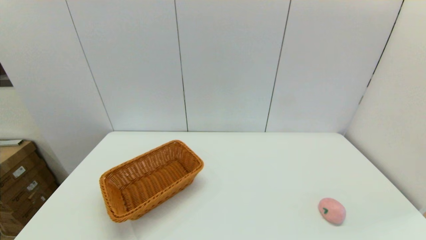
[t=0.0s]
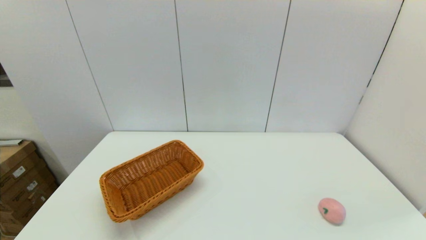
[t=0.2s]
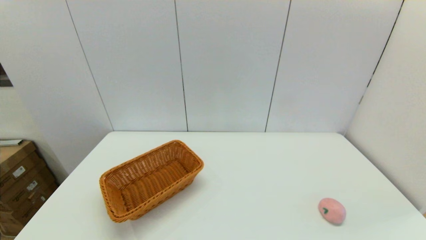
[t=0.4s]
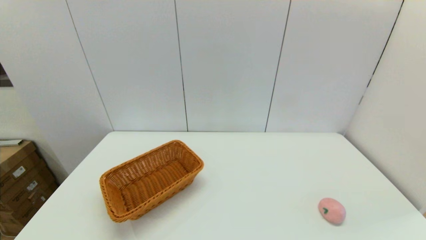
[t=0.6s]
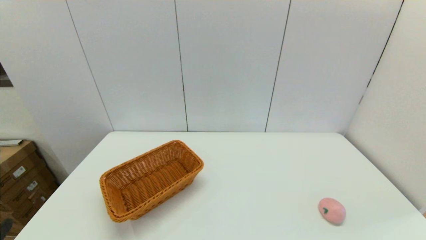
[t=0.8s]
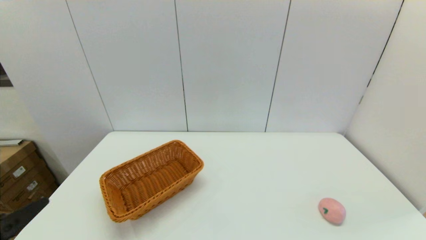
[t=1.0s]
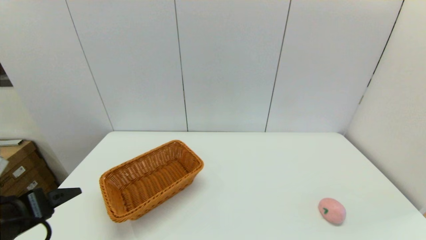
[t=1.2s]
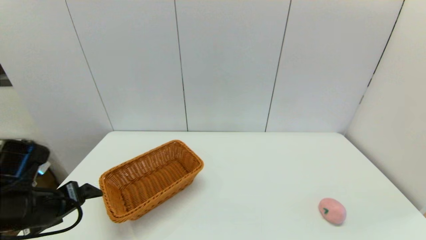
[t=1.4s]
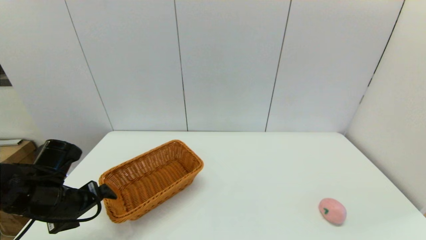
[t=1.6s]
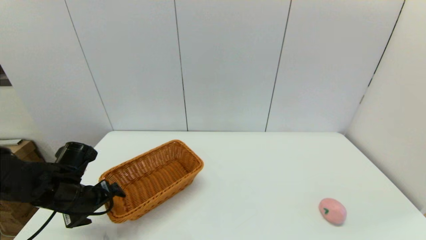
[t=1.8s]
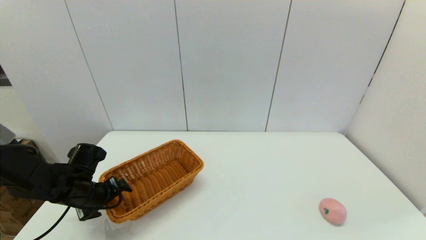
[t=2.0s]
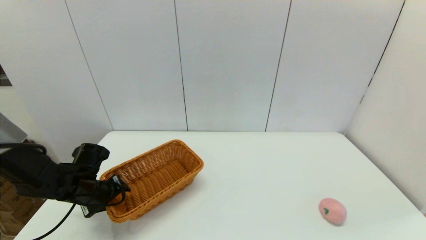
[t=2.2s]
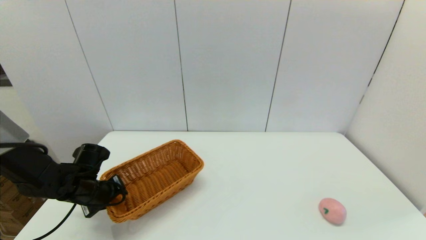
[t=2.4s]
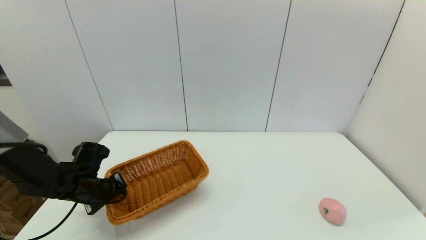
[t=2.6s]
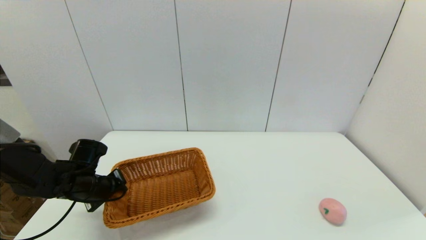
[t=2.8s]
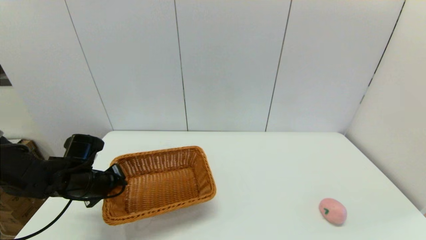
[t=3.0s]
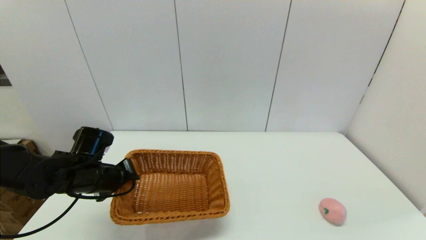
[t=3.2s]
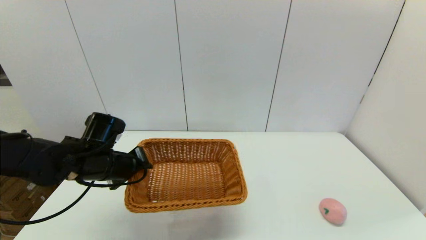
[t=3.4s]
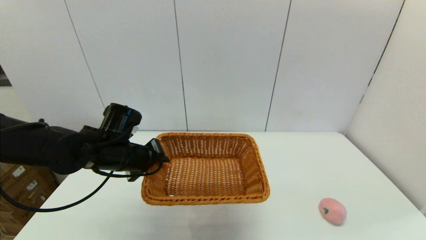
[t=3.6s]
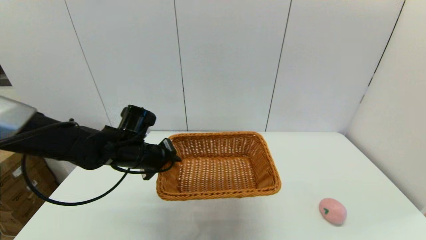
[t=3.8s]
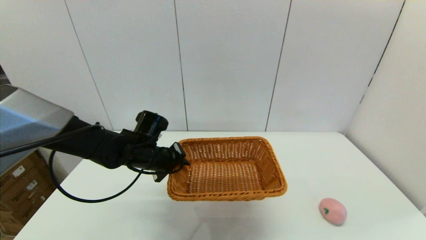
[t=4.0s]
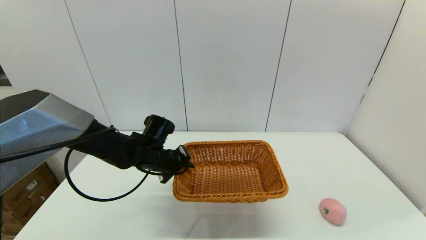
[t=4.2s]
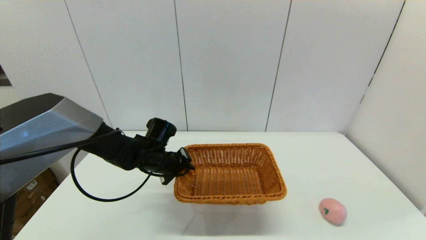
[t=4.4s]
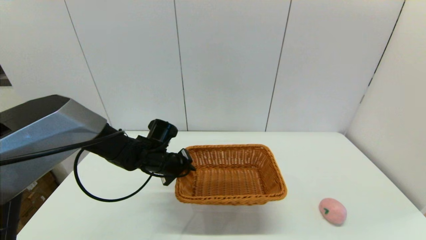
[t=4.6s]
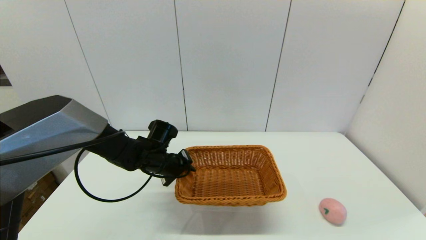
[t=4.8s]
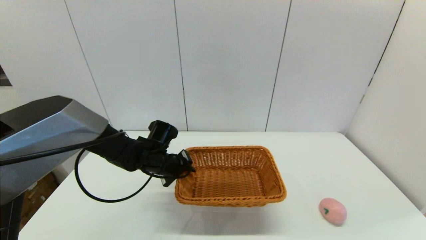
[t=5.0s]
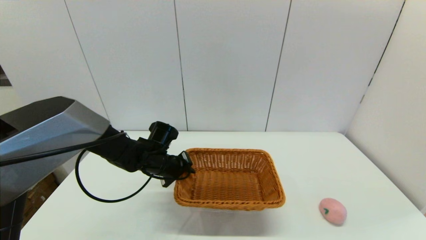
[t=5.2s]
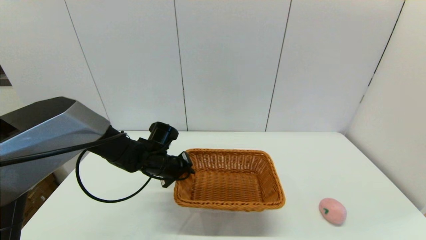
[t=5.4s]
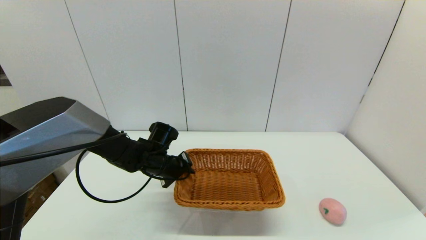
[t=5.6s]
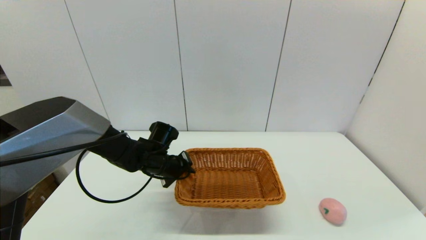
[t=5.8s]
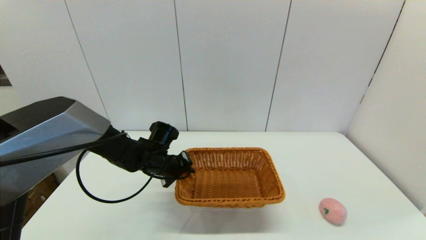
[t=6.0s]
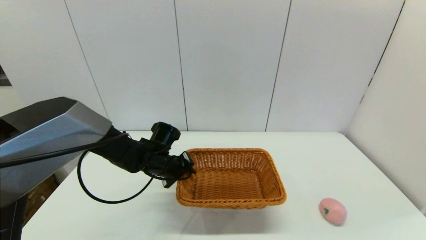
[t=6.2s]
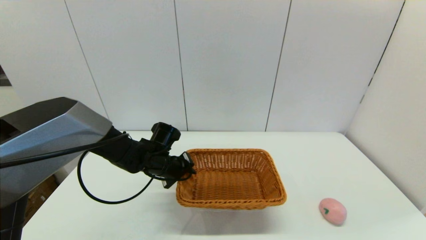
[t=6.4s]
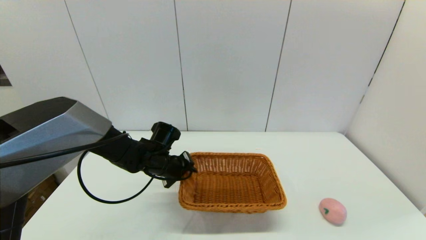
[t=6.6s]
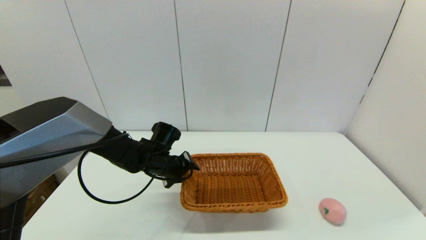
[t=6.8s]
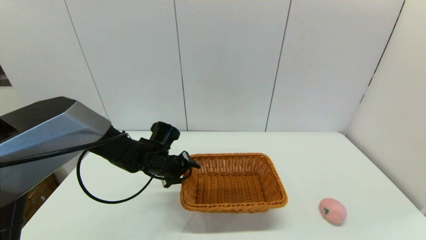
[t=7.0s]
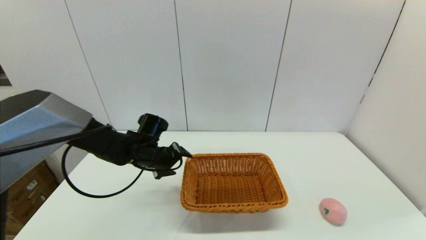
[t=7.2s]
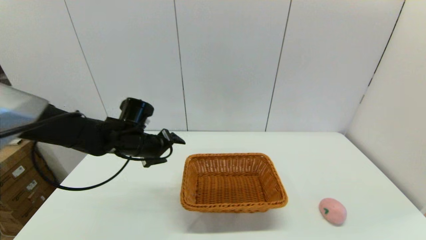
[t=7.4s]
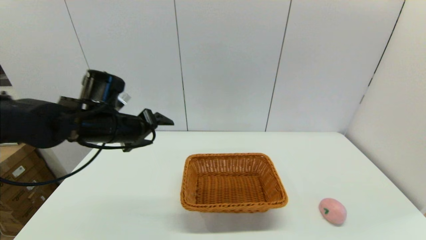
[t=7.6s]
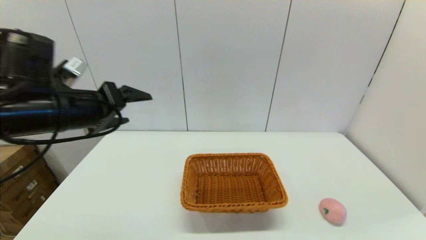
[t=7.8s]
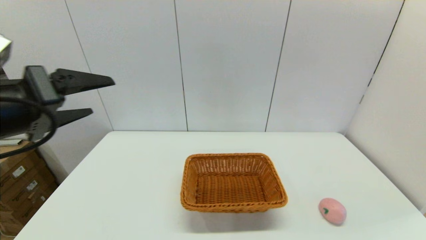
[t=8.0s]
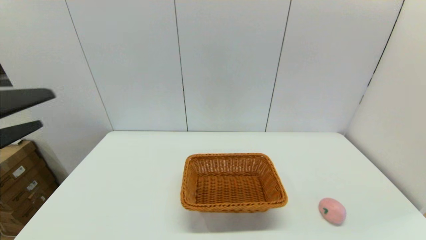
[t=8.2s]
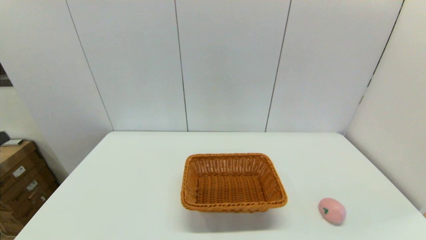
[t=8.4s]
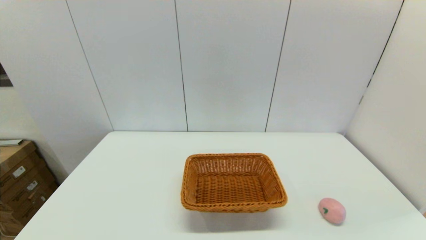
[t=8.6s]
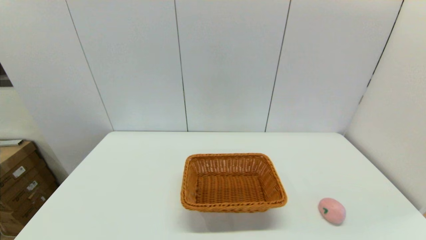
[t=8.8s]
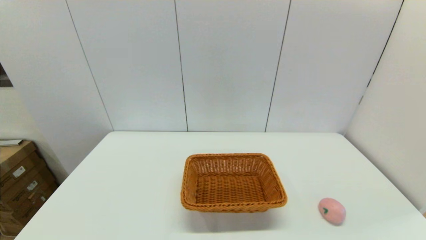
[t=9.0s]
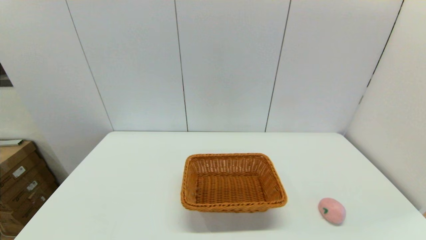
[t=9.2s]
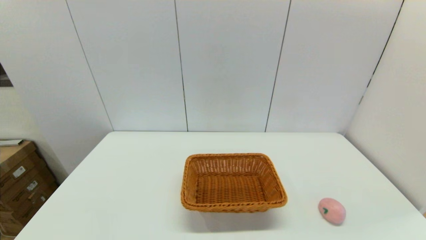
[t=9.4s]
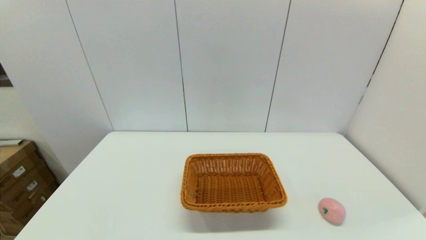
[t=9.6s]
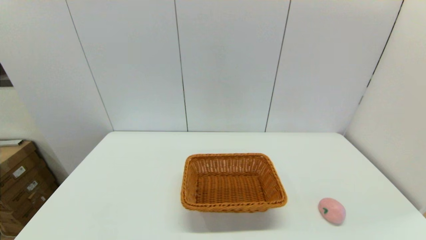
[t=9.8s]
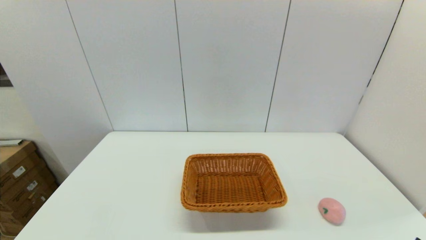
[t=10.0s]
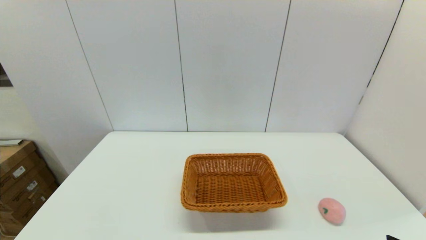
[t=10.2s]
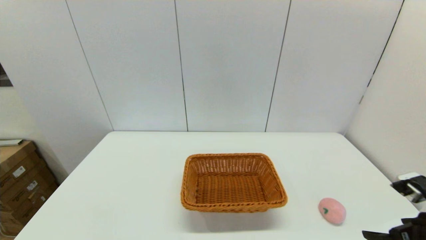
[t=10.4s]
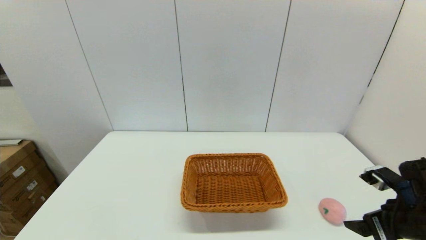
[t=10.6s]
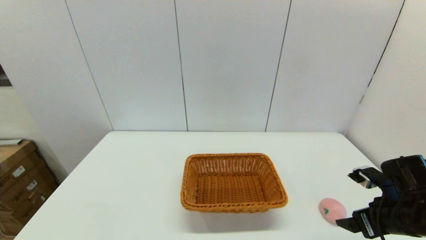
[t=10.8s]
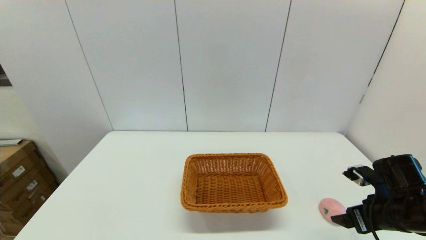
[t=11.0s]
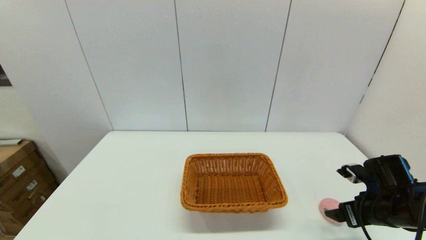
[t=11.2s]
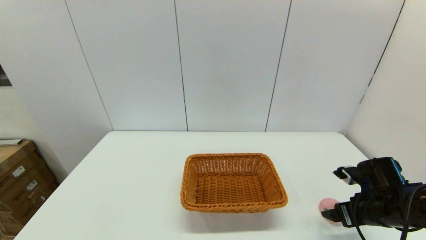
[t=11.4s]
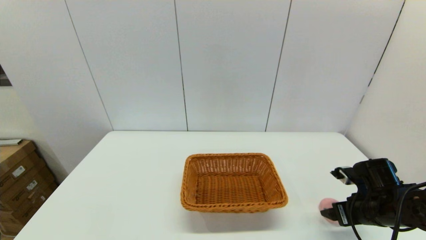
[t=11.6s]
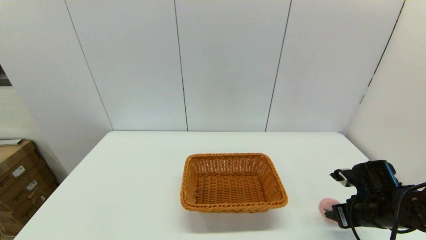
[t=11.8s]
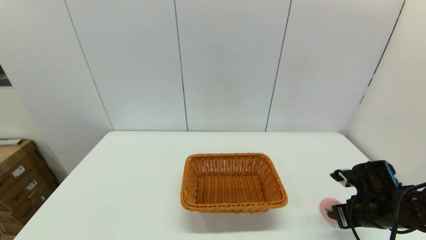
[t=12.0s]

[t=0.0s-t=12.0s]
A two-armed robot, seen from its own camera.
Step, t=0.0s to t=2.4s: Grasp the light basket with the left gripper.
Step, t=2.8s to t=7.0s: Place the light basket on the middle of the table with the left gripper.
t=0.0s to t=1.6s: The left gripper travels forward by about 25 cm.
t=1.6s to t=3.0s: The left gripper travels forward by roughly 5 cm, and closes.
t=3.0s to t=4.4s: The left gripper shifts approximately 15 cm to the right and forward.
t=4.4s to t=6.0s: Both grippers stay about where they are.
t=6.0s to t=7.6s: The left gripper is displaced upward and to the left by some 15 cm, and opens.
t=7.6s to t=9.0s: The left gripper shifts about 35 cm backward.
t=9.0s to t=10.4s: The right gripper moves forward, some 15 cm.
t=10.4s to t=12.0s: The right gripper goes roughly 15 cm forward and downward, and closes its fingers.

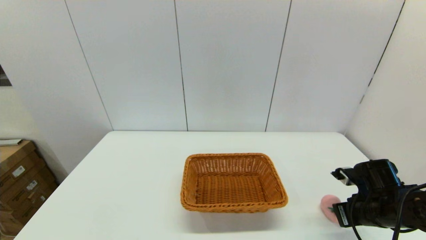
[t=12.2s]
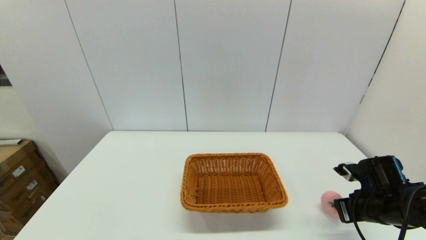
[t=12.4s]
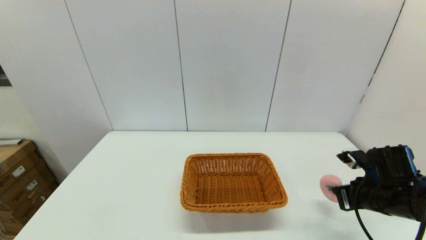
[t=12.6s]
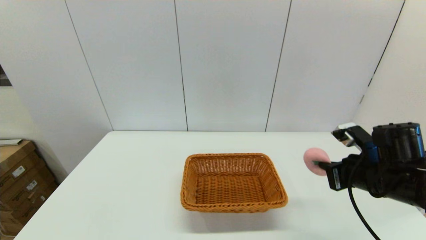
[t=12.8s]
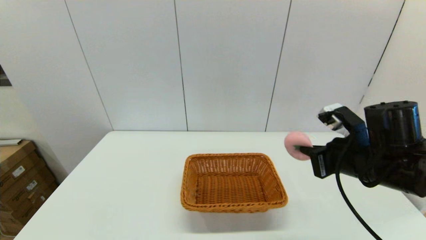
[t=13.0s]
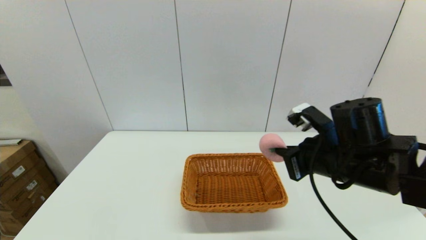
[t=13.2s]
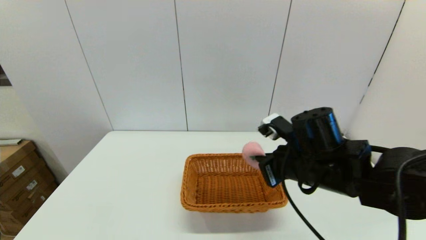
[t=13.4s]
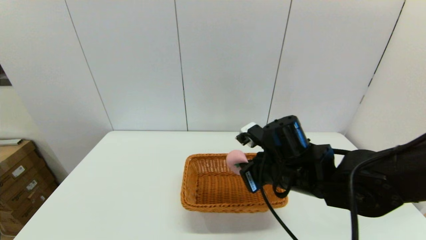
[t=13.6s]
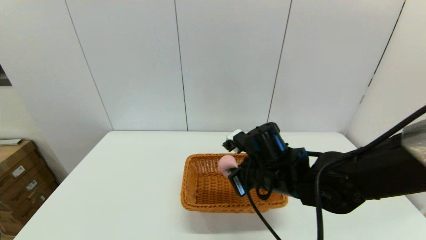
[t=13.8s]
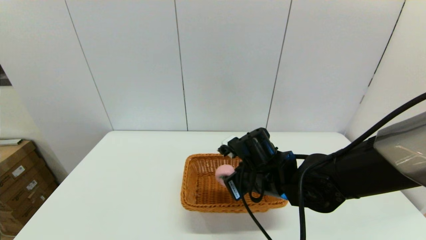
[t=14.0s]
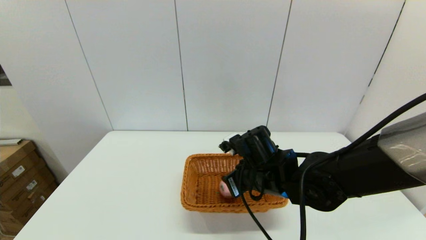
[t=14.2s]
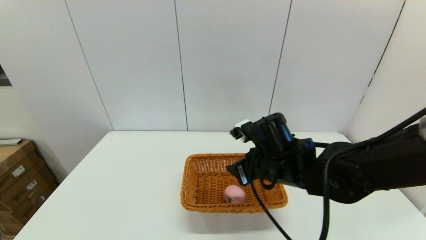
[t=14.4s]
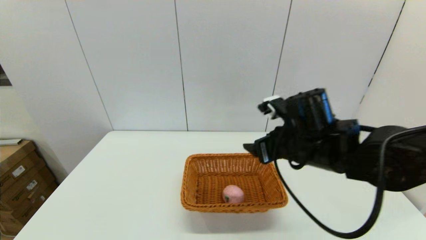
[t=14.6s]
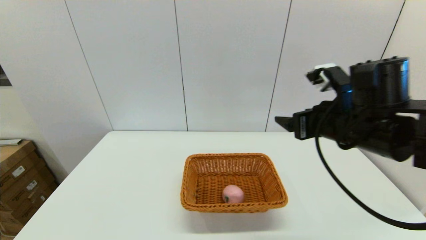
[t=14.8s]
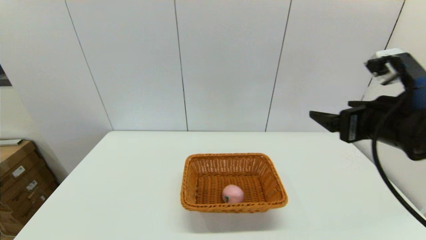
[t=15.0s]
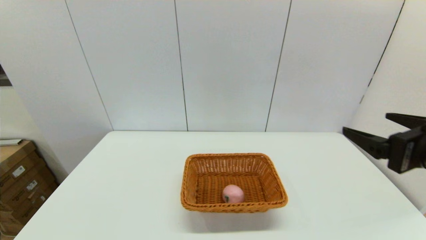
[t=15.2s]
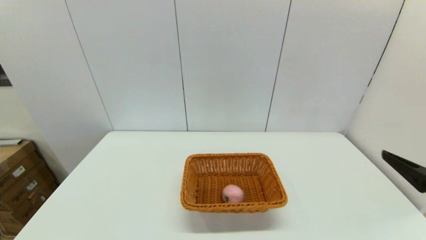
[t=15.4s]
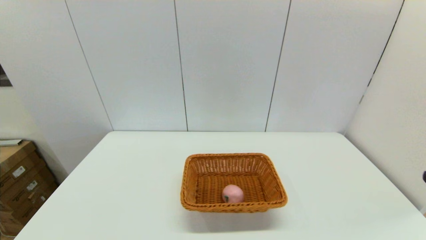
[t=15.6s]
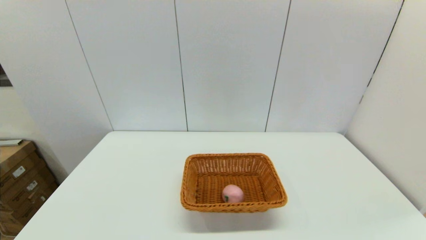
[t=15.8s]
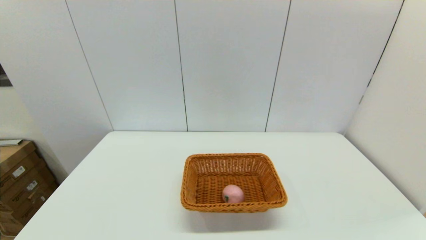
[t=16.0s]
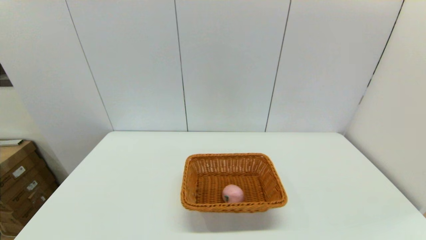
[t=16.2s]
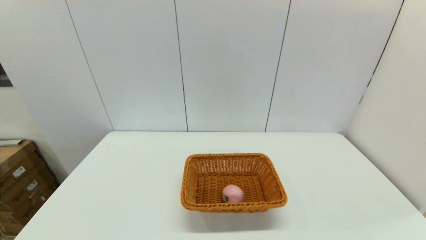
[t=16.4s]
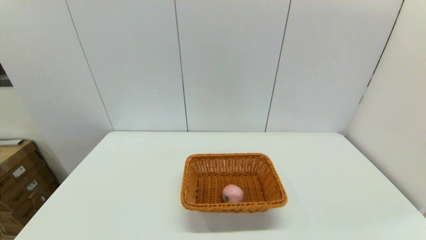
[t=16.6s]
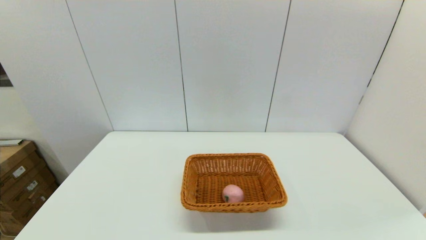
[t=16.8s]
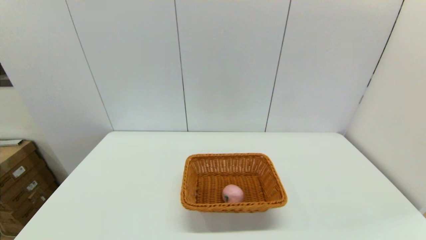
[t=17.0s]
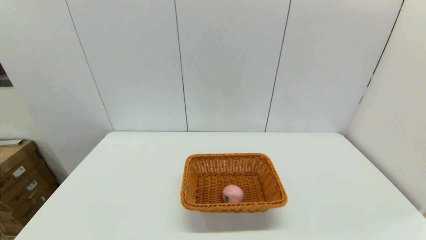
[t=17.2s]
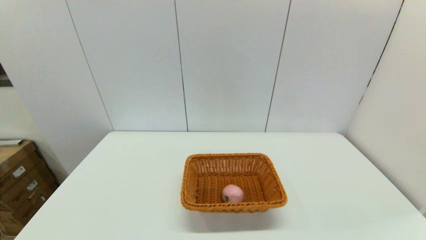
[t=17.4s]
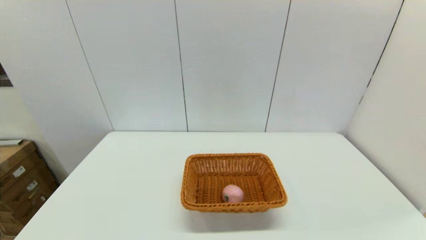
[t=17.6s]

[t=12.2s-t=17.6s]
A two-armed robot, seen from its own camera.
Step, t=12.4s to t=14.2s: Place the peach into the light basket with the right gripper.
t=12.2s to t=13.6s: The right gripper moves to the left and upward, some 25 cm.
t=13.6s to t=15.0s: The right gripper moves to the right, upward and backward, approximately 20 cm, and opens its fingers.
t=15.0s to t=16.2s: The right gripper moves backward, downward and to the right, approximately 25 cm.
